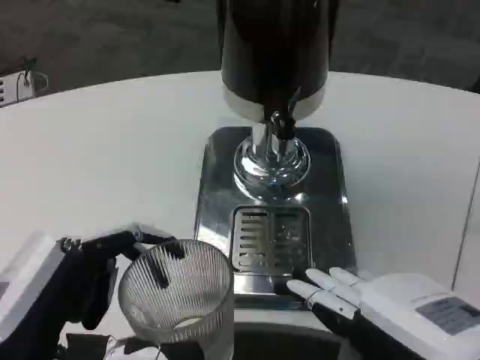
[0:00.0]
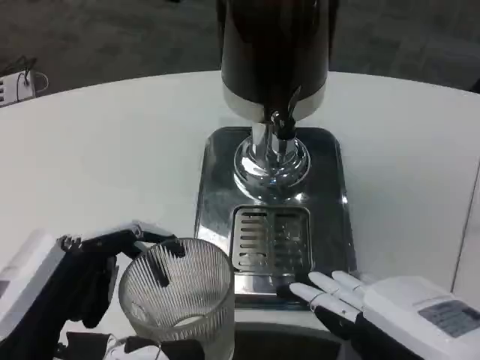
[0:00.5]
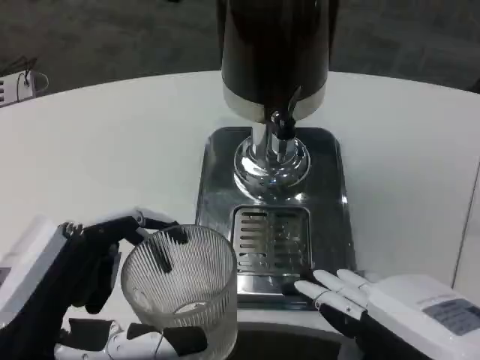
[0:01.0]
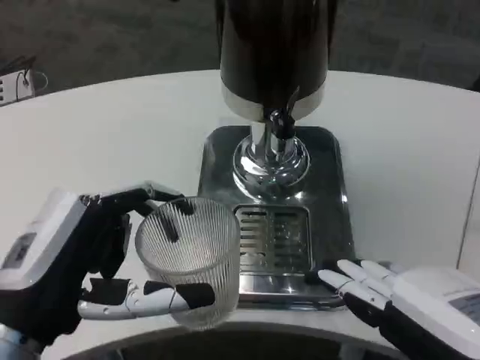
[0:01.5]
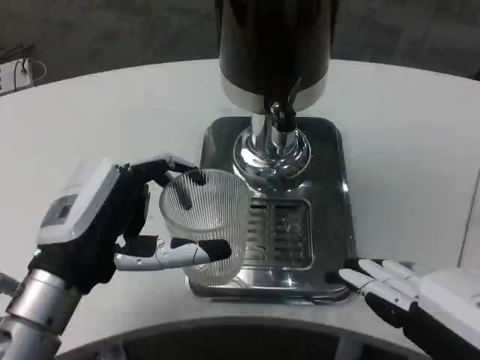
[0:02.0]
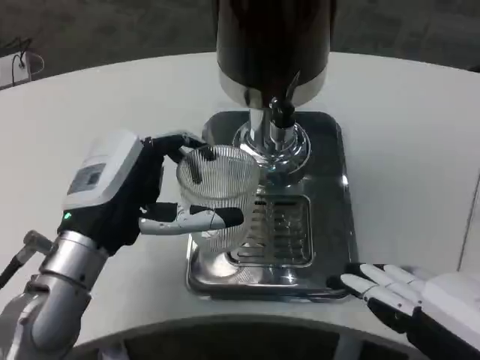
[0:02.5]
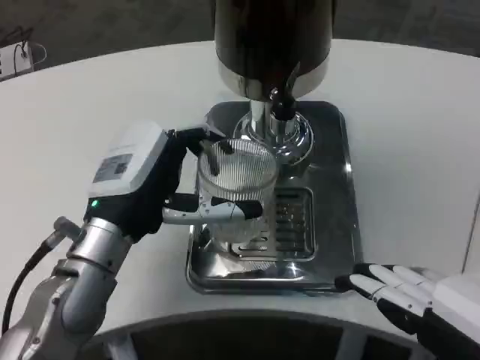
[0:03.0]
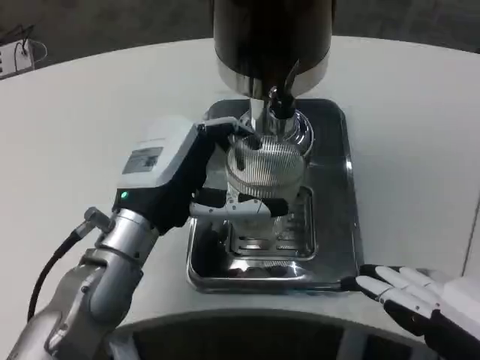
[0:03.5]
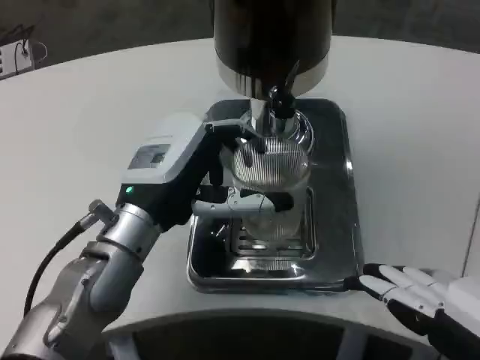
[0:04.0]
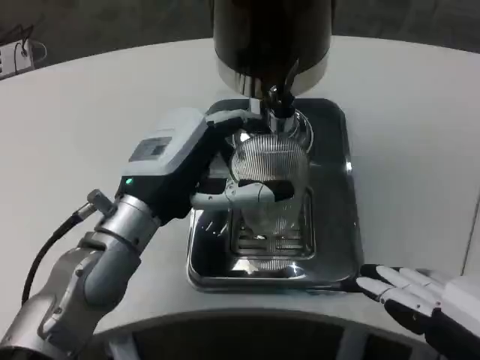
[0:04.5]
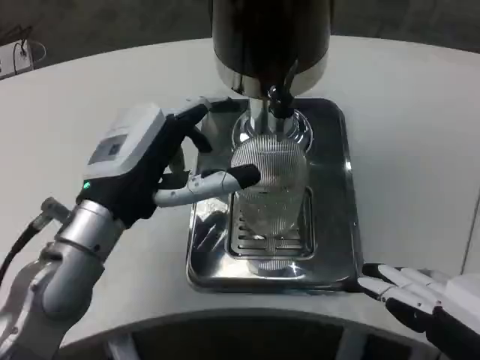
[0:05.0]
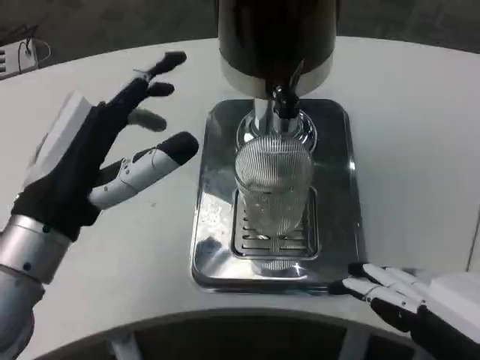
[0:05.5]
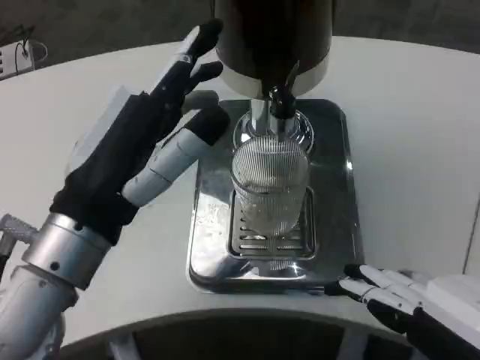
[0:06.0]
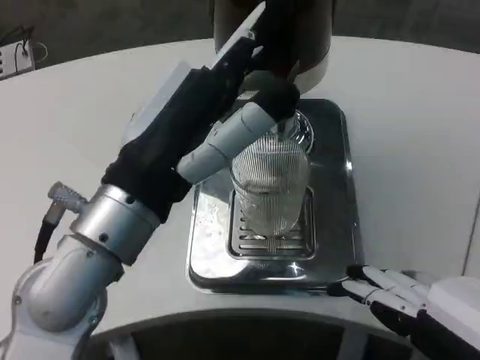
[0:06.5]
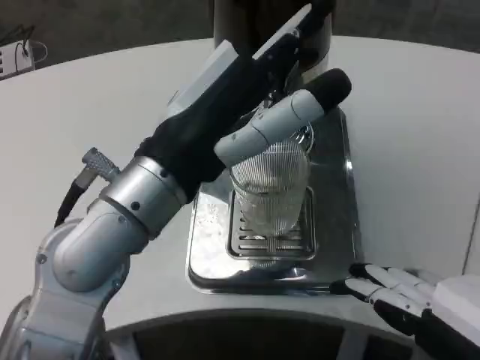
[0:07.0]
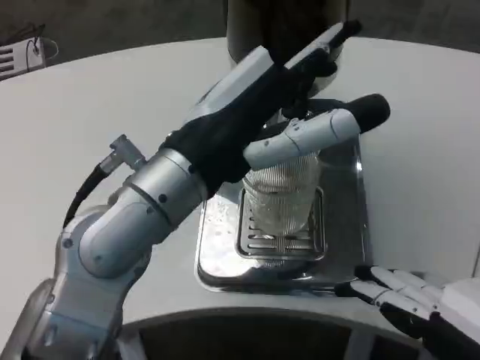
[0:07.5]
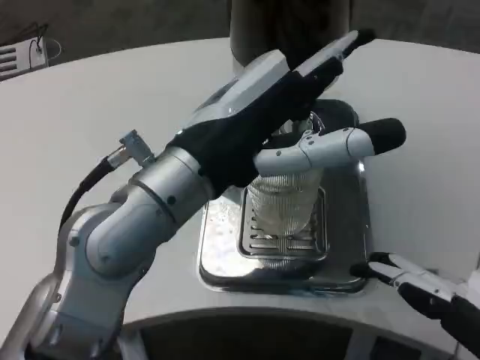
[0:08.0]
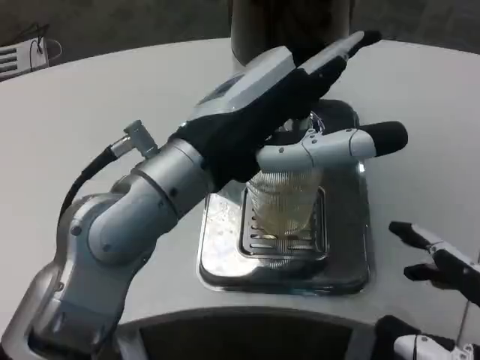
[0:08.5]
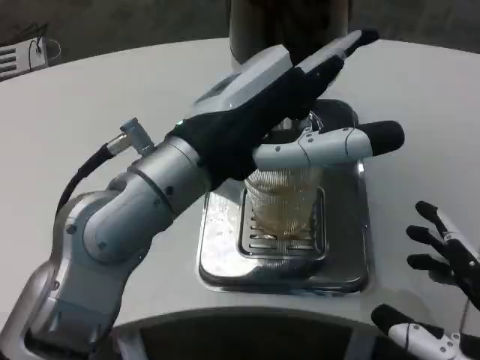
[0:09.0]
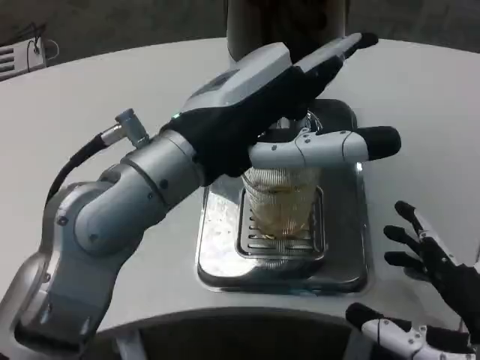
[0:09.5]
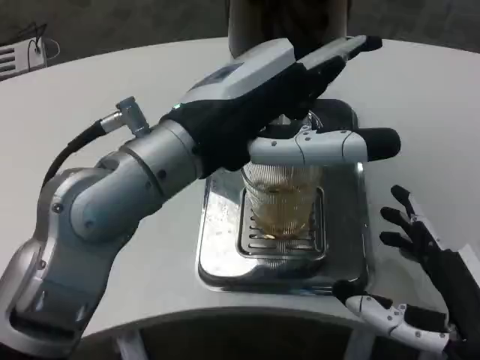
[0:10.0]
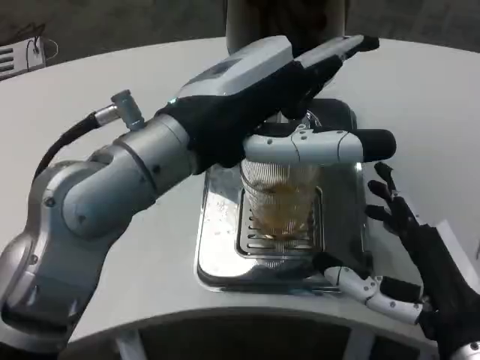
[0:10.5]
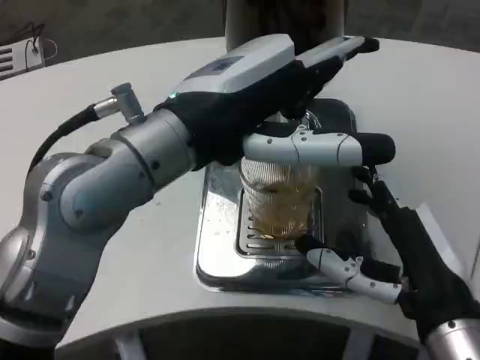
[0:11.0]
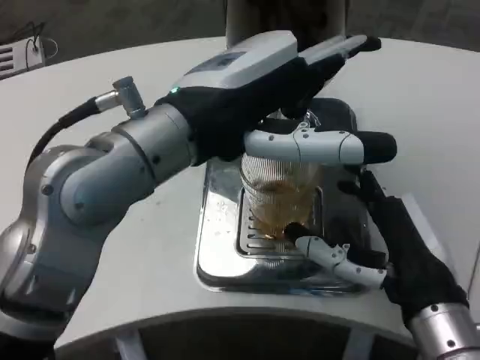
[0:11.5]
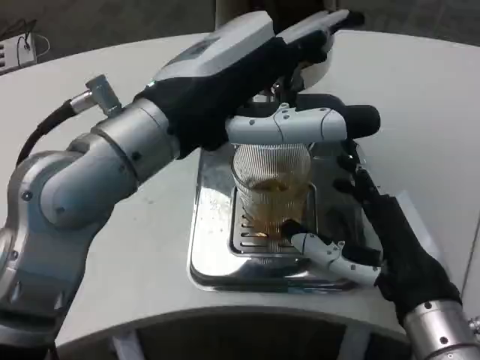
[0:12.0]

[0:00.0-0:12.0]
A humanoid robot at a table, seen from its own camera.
Task of the whole recording: Grasp the cup under the faucet to collect the drink, then remove the cup.
0:00.0 to 0:02.0: The left hand is displaced forward by roughly 10 cm.
0:02.0 to 0:04.0: The left hand moves forward and to the right, approximately 10 cm.
0:04.0 to 0:06.0: The left hand travels backward by about 10 cm.
0:06.0 to 0:08.0: The left hand travels to the right and upward by about 10 cm.
0:08.0 to 0:10.0: The right hand shifts some 10 cm forward and downward.
0:10.0 to 0:12.0: The right hand heads forward, covering some 5 cm.

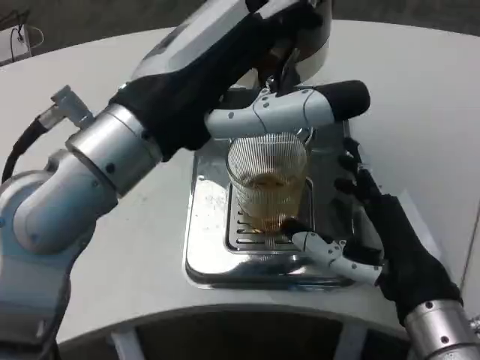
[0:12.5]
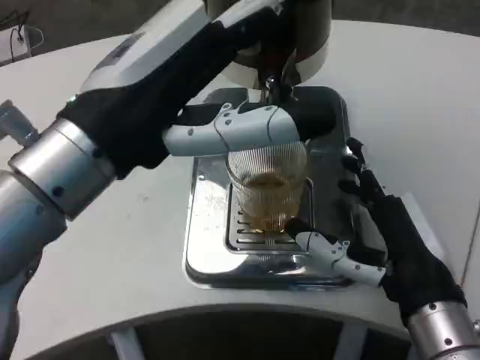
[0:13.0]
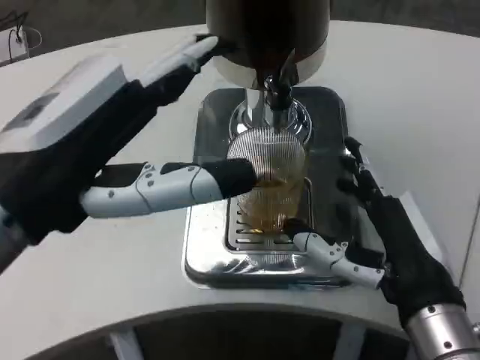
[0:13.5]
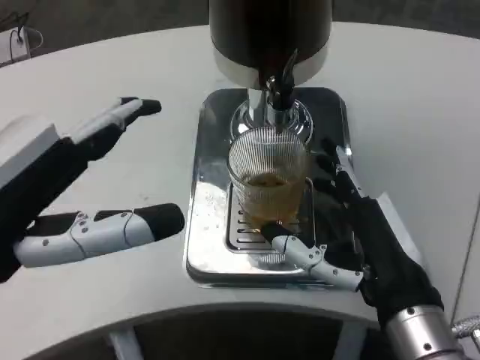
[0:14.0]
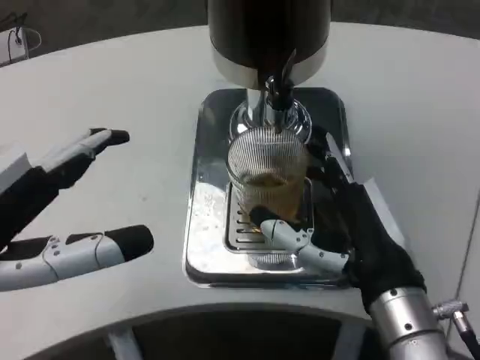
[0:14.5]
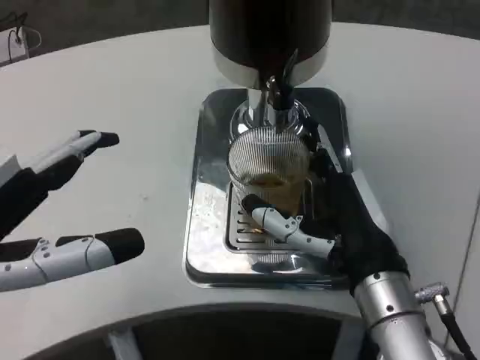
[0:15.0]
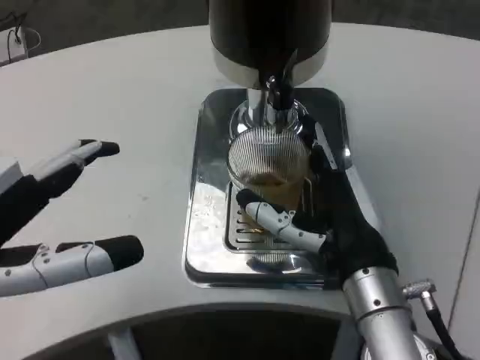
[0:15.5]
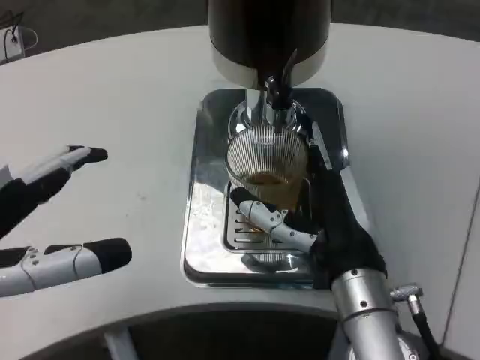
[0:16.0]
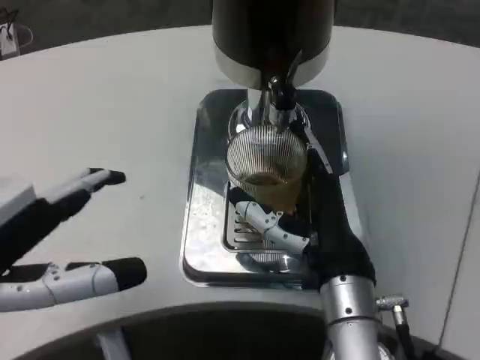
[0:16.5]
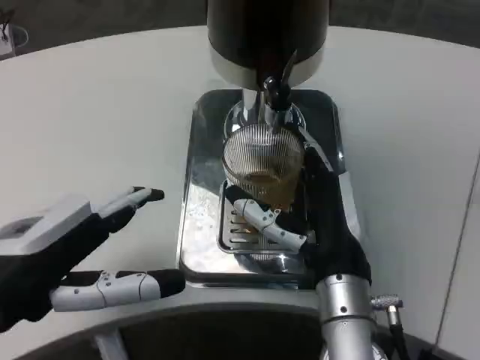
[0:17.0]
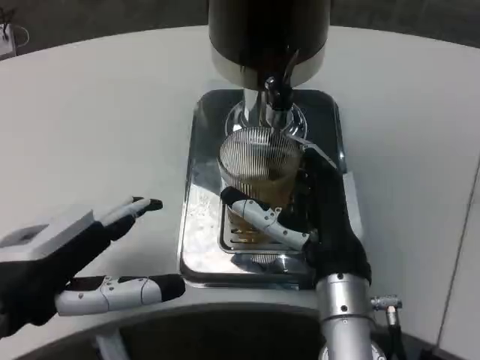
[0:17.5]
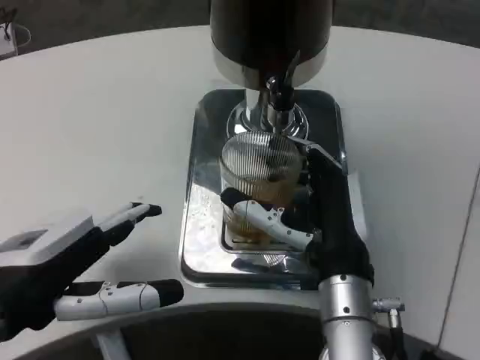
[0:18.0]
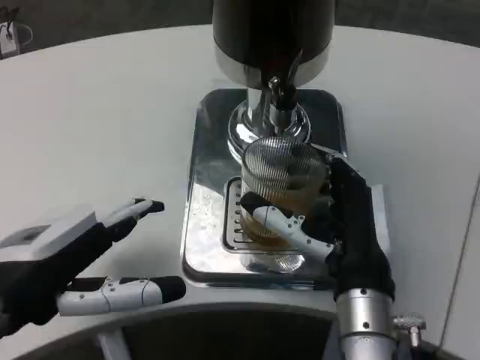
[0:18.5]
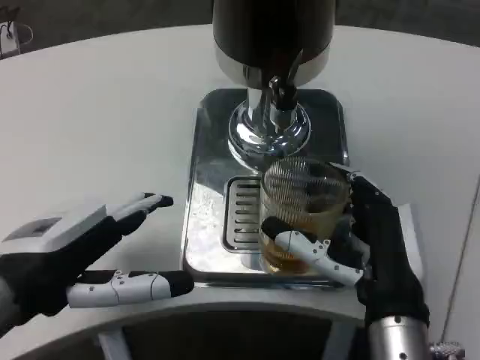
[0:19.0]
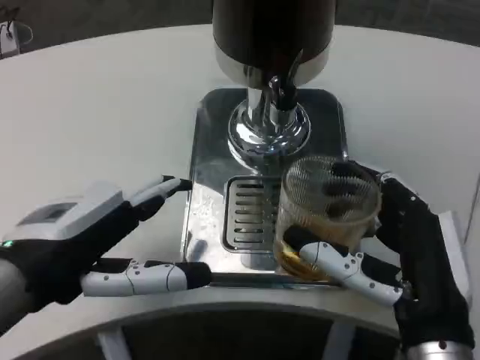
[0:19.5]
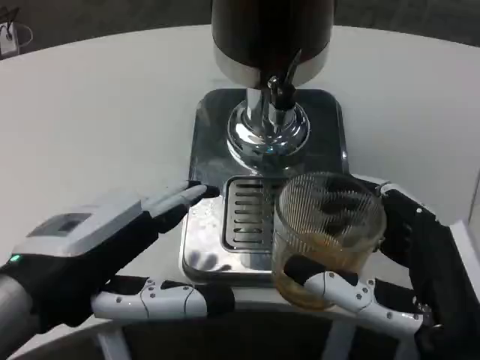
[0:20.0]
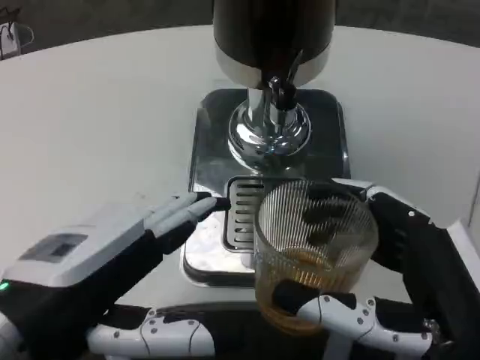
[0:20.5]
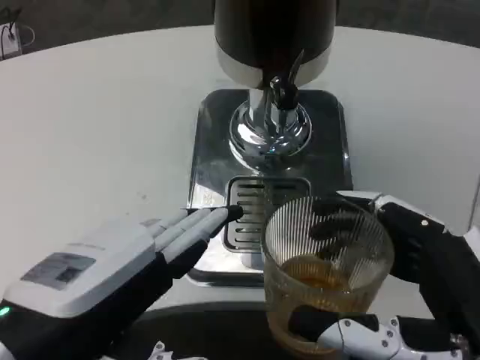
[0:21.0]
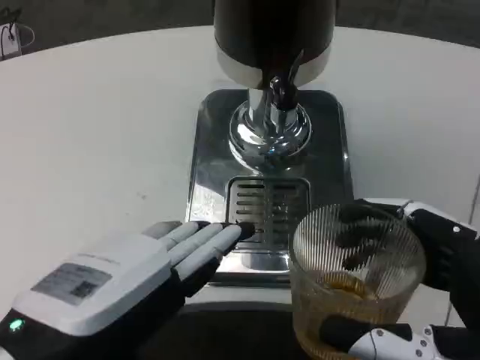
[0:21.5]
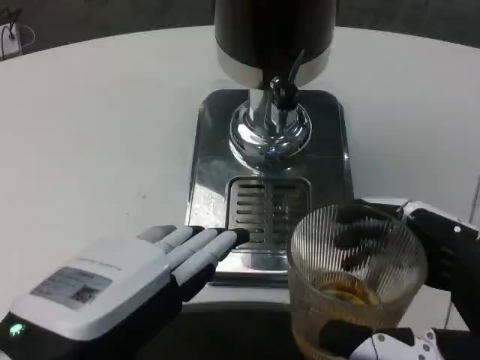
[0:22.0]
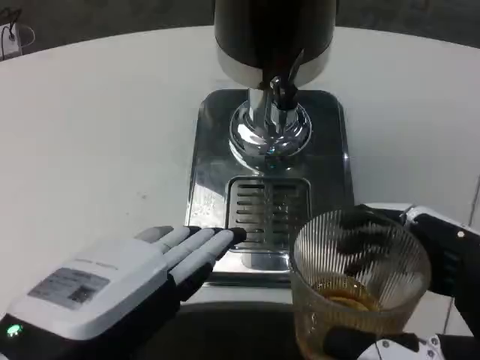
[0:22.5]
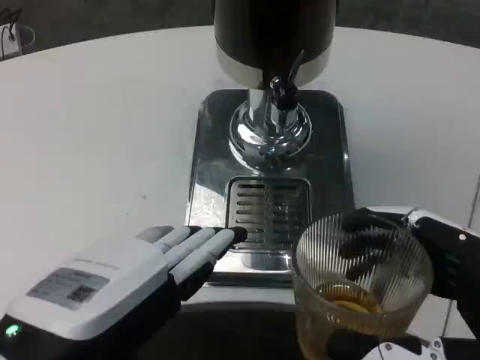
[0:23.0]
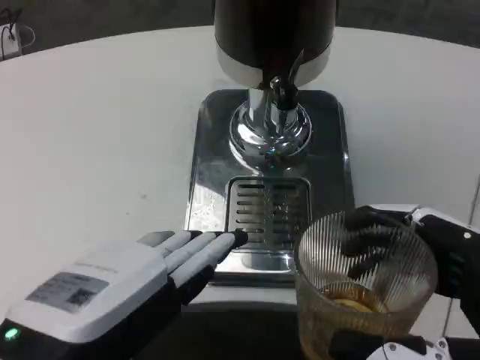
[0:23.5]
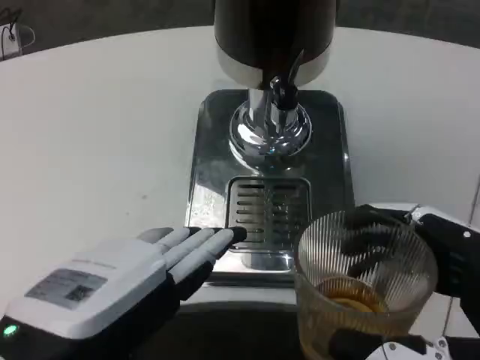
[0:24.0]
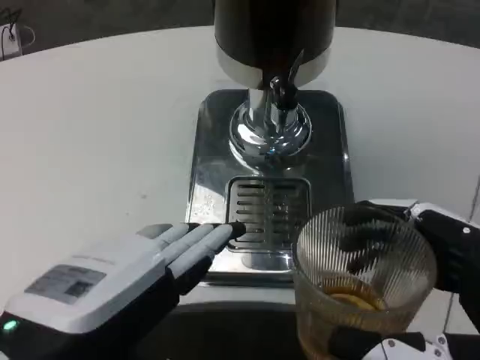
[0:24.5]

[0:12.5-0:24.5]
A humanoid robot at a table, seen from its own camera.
Task of the whole recording: Grasp the cup under the faucet to collect the drink, then remove the cup.
0:12.5 to 0:14.5: The left hand goes approximately 15 cm to the left and backward.
0:14.5 to 0:16.5: The right hand moves some 5 cm.
0:16.5 to 0:18.5: The left hand moves roughly 5 cm.
0:18.5 to 0:20.5: The right hand travels backward and to the right by some 15 cm. Meanwhile the left hand shifts by some 5 cm.
0:20.5 to 0:22.5: The right hand moves about 5 cm.
0:22.5 to 0:24.5: Both hands stay about where they are.

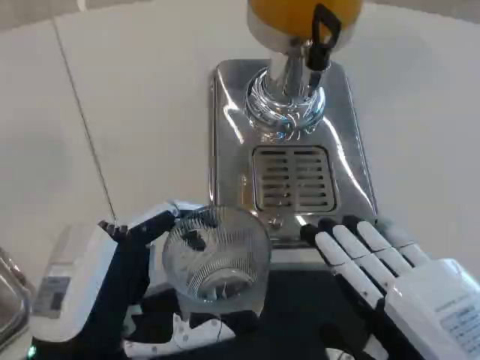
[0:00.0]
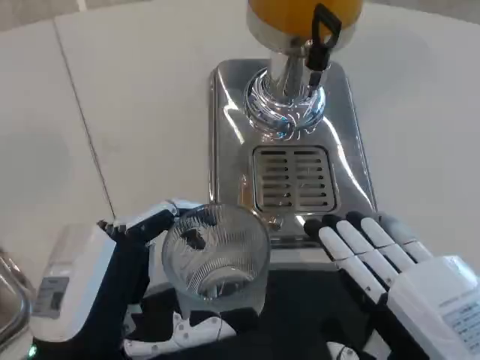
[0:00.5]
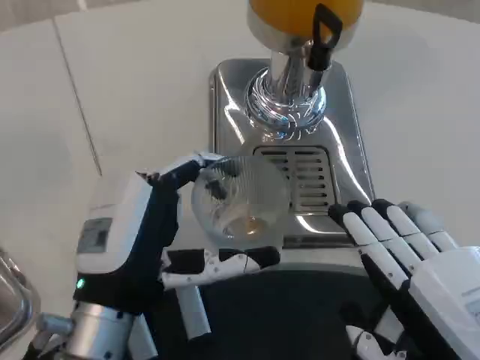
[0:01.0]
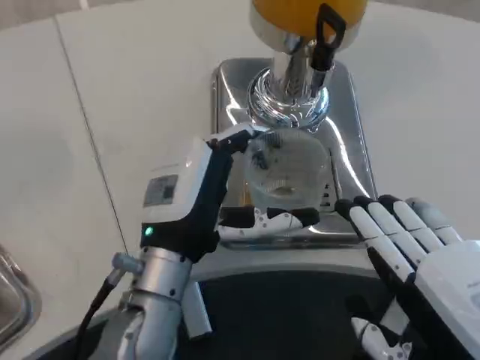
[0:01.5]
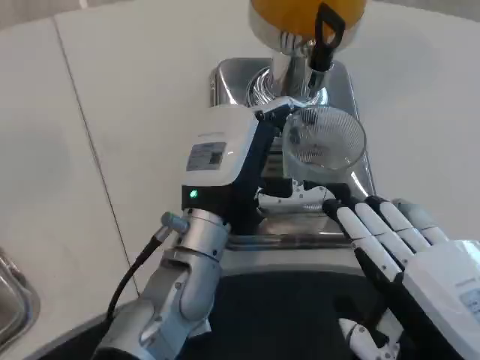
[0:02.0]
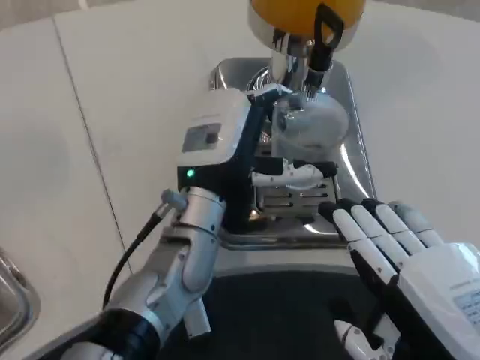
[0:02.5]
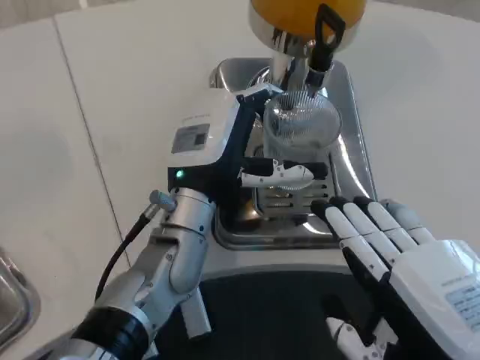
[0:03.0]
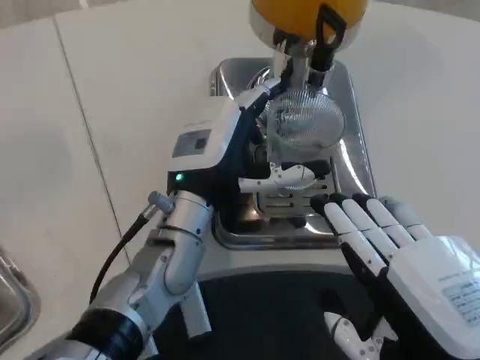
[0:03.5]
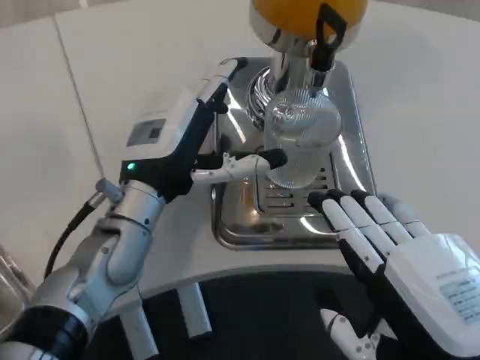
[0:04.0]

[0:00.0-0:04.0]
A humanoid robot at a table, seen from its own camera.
Task of the whole recording: Grasp the cup under the faucet to collect the drink, then remove the cup.
0:00.0 to 0:02.0: The left hand heads forward and to the right, covering about 20 cm.
0:02.0 to 0:04.0: The left hand heads to the left, covering approximately 5 cm.
